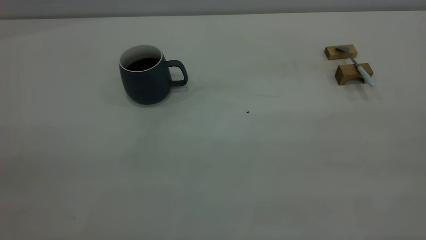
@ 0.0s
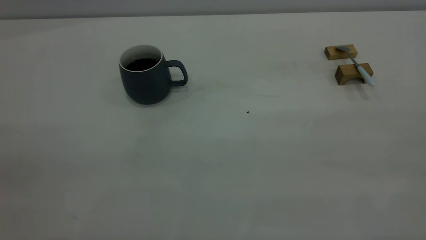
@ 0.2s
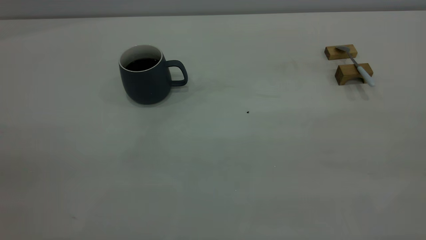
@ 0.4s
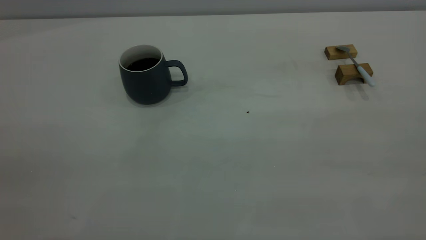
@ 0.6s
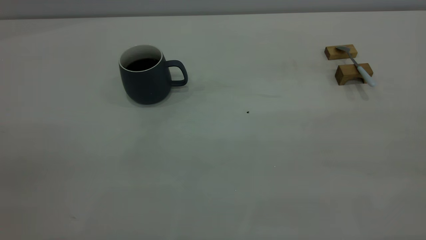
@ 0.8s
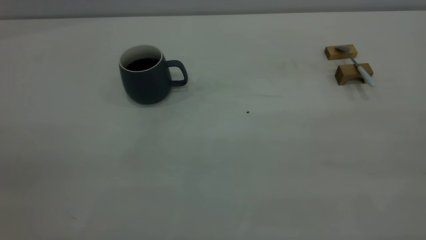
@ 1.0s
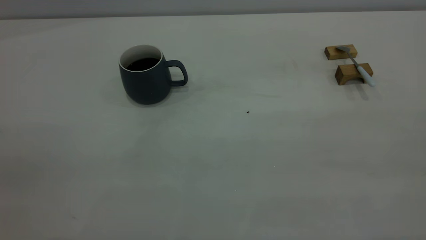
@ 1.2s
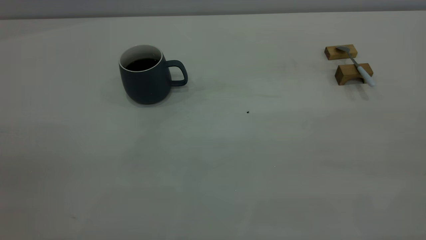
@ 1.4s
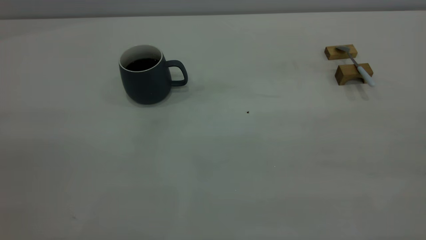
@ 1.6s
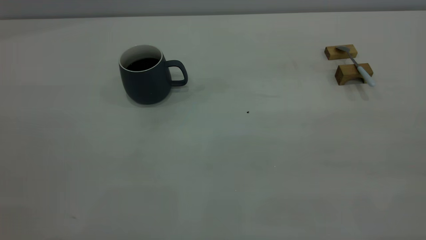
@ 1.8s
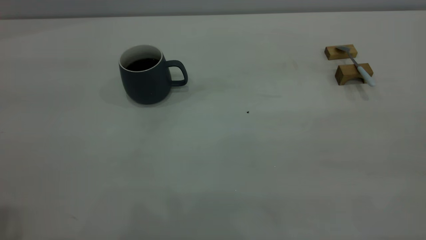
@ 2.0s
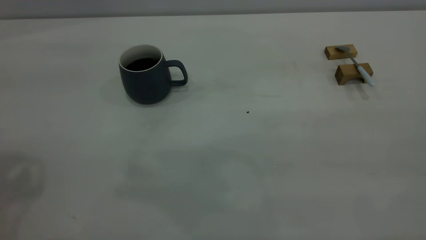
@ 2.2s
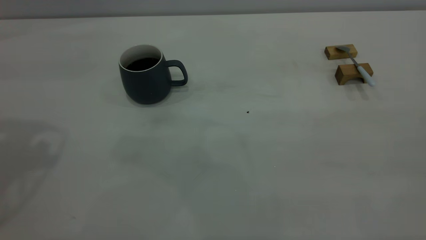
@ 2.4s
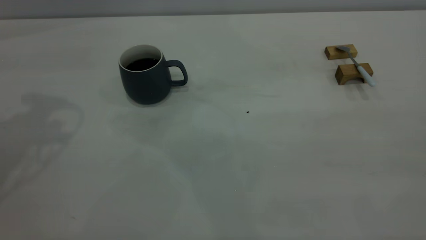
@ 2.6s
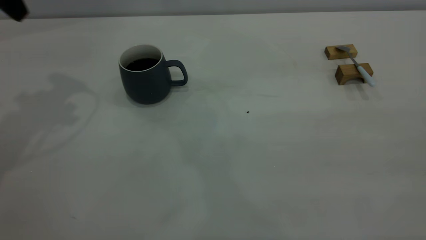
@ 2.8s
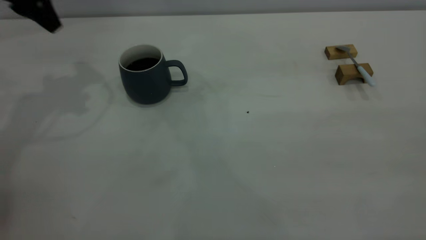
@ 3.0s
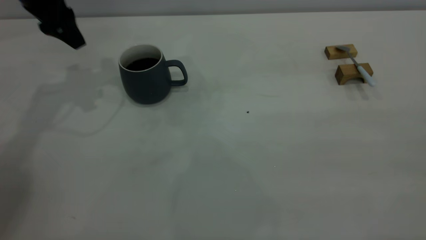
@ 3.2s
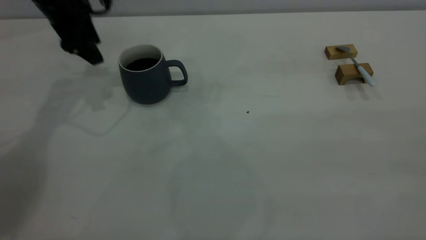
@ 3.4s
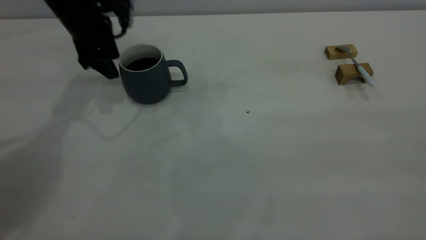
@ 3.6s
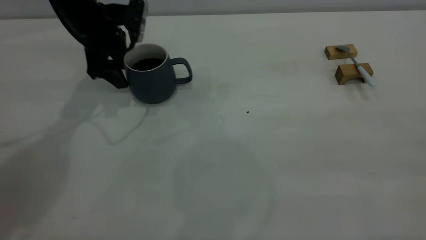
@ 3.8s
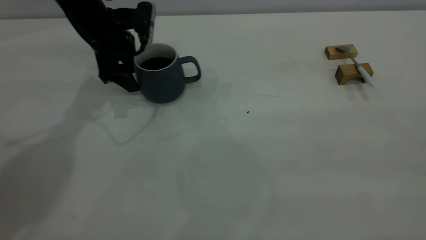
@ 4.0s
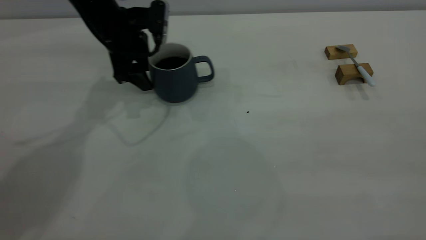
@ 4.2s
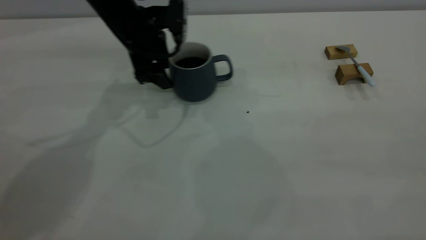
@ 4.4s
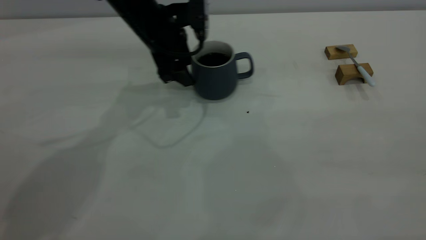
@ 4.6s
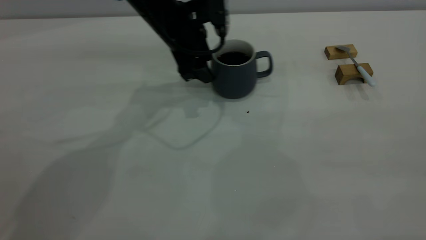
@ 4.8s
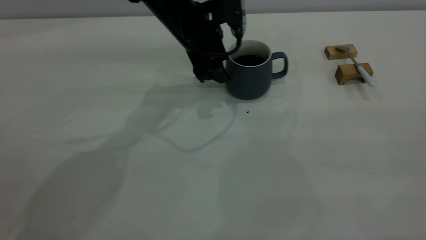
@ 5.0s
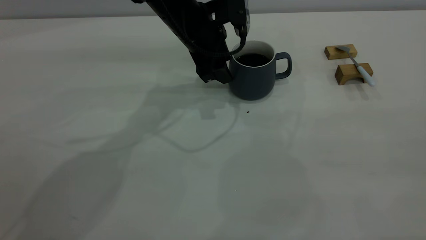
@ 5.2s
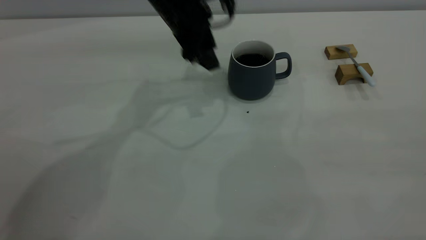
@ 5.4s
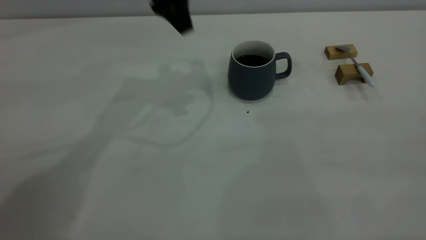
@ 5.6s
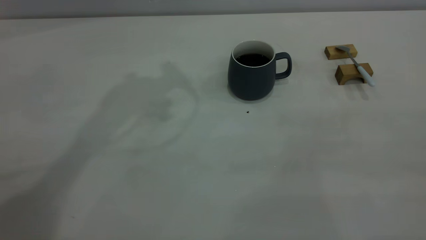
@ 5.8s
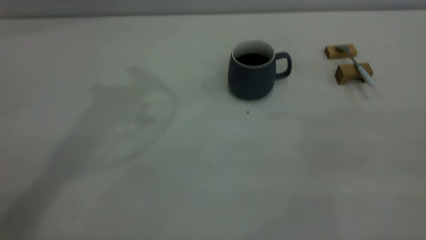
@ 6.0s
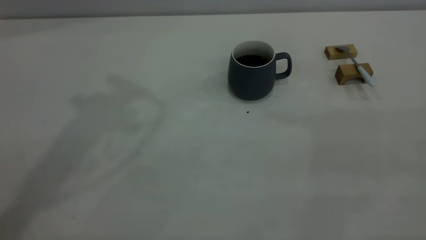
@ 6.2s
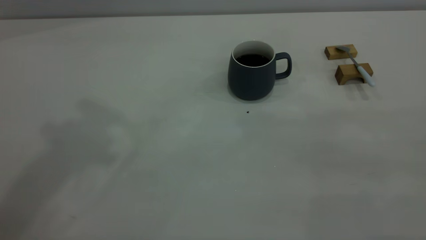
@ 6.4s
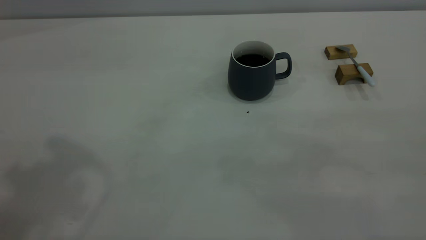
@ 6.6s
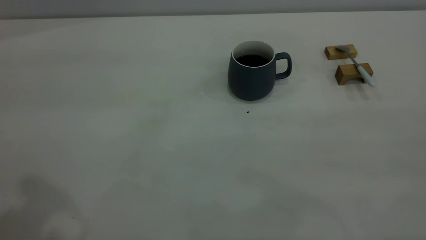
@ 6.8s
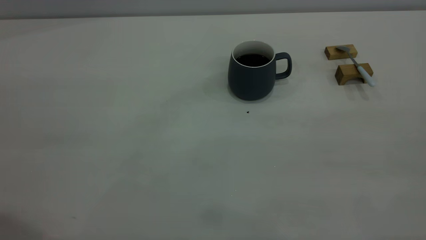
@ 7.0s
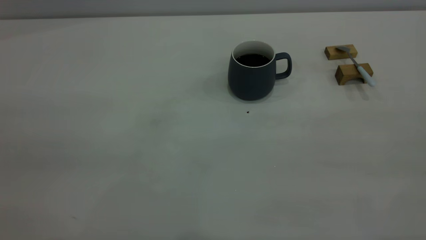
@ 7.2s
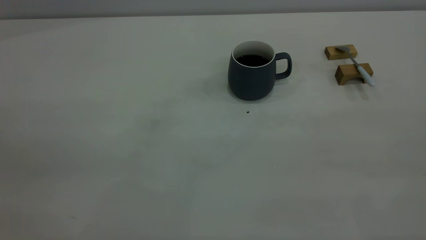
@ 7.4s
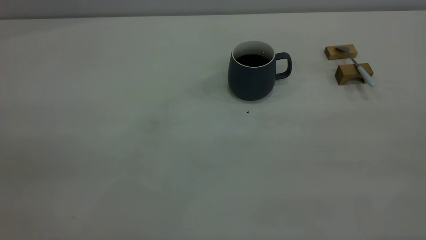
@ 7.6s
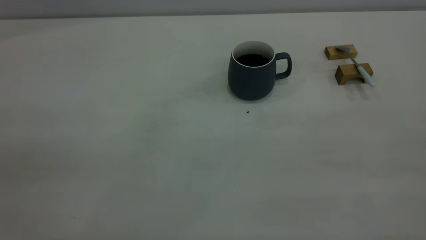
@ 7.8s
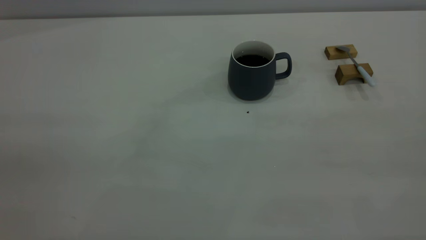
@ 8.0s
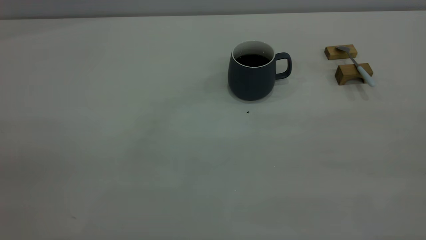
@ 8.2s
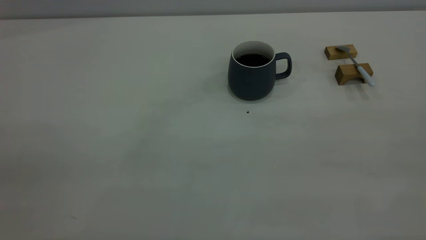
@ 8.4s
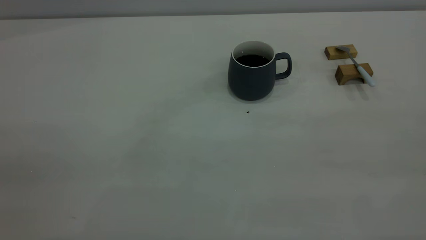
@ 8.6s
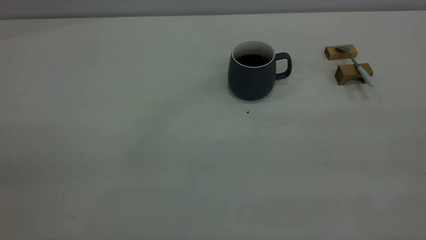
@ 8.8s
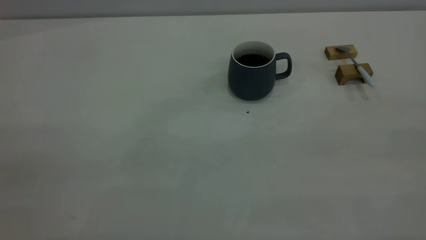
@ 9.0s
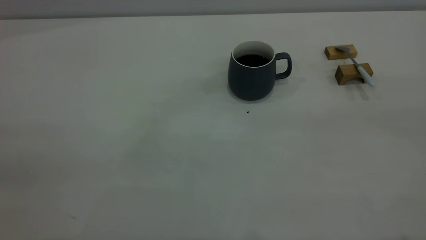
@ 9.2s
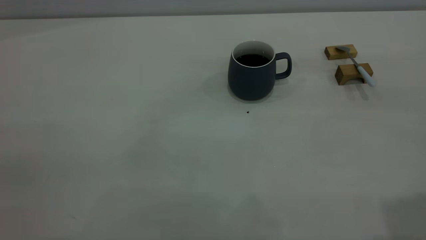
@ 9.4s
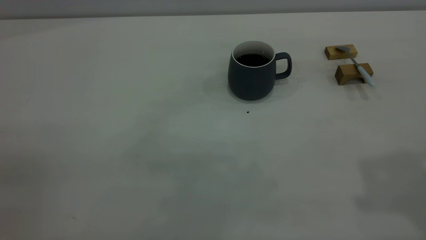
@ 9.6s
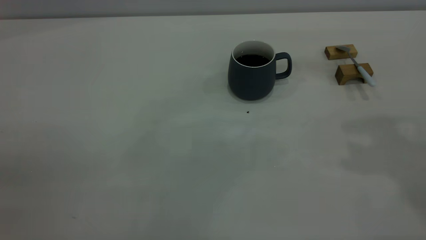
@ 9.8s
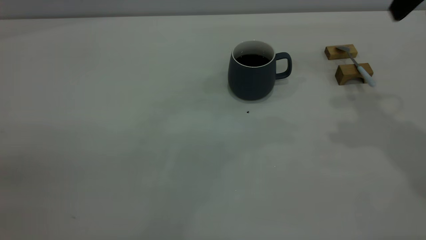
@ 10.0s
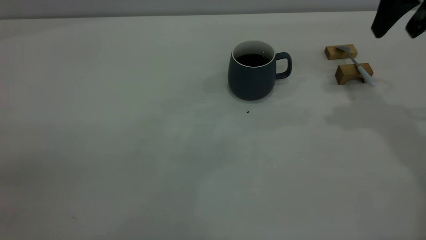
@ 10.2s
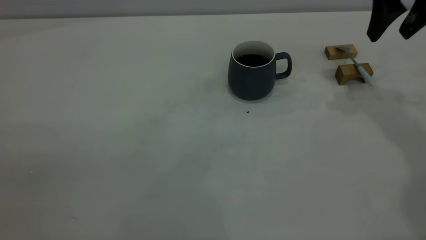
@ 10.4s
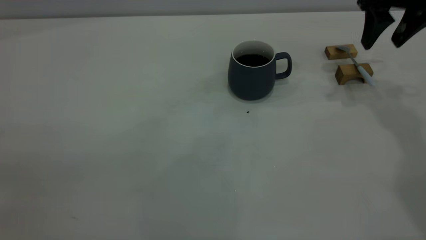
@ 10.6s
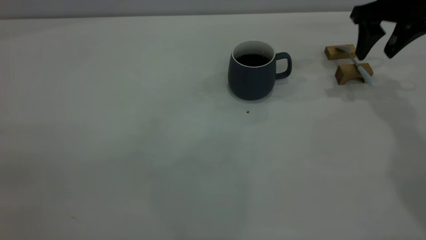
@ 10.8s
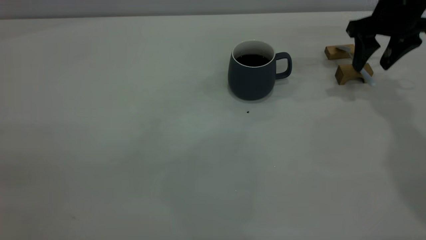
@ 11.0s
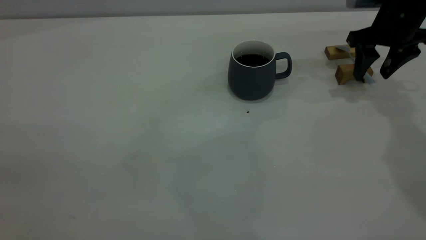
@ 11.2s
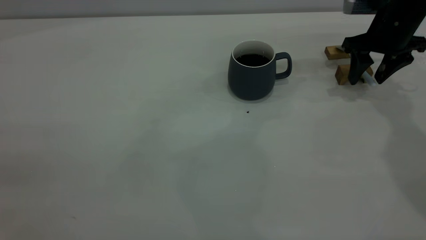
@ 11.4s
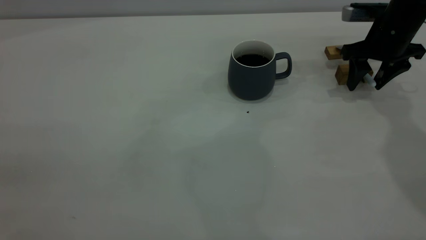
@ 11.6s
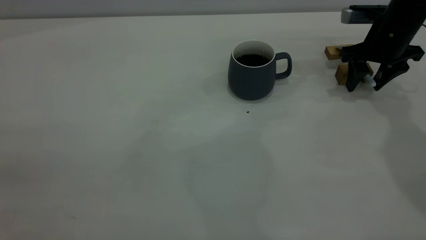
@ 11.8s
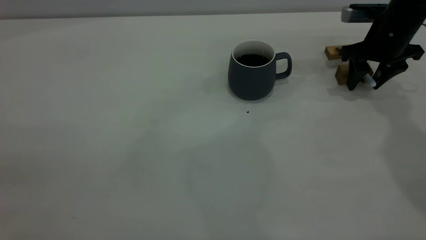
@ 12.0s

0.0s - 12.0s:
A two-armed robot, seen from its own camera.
Step, 0.0s - 5.4s: Move the cup with coffee to the center of view.
1.6s - 3.0s: The left gripper is displaced forward by roughly 40 cm.
3.0s - 4.4s: The left gripper is displaced to the right and downward by about 20 cm.
4.4s - 6.0s: The left gripper is displaced upward by approximately 30 cm.
9.0s - 10.4s: The right gripper heads forward, covering some 40 cm, and opens its fingers.
10.4s - 12.0s: The right gripper moves downward, approximately 15 cm.

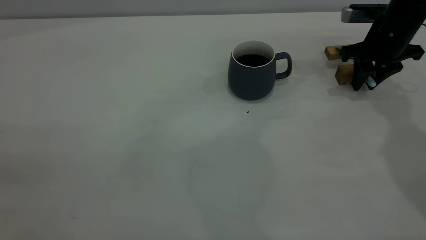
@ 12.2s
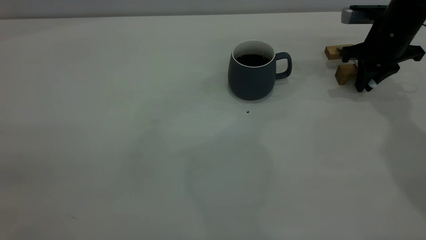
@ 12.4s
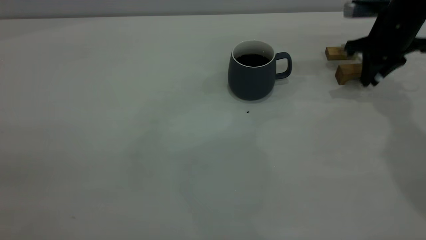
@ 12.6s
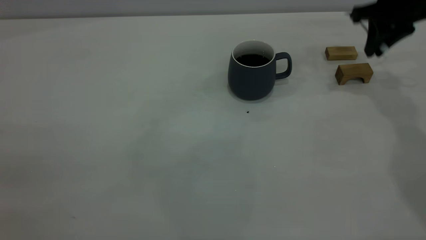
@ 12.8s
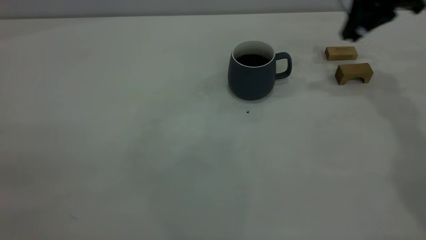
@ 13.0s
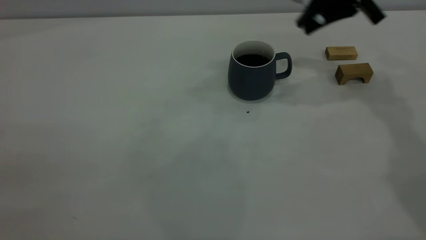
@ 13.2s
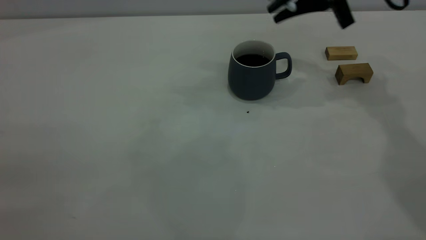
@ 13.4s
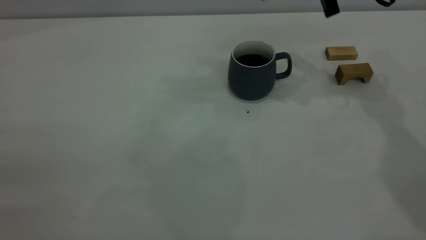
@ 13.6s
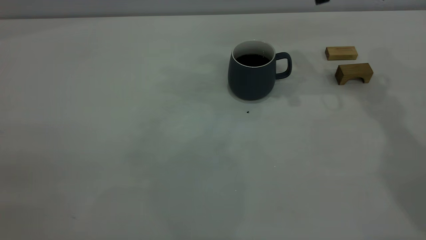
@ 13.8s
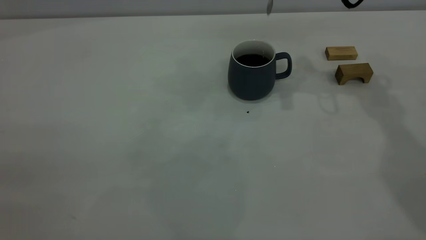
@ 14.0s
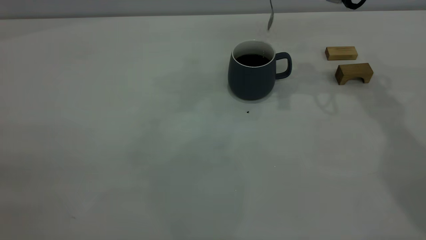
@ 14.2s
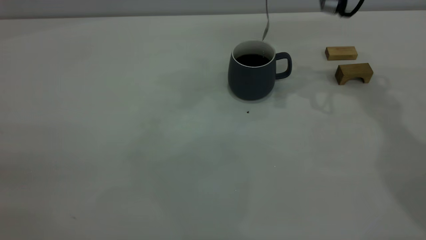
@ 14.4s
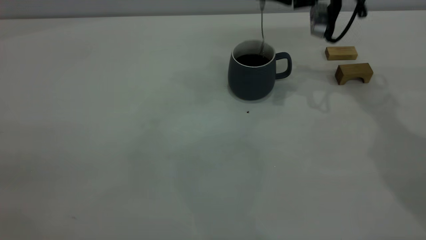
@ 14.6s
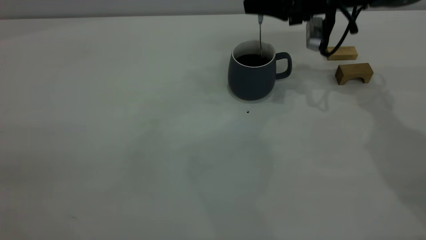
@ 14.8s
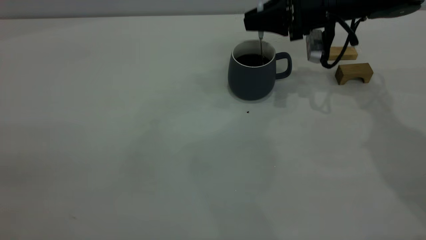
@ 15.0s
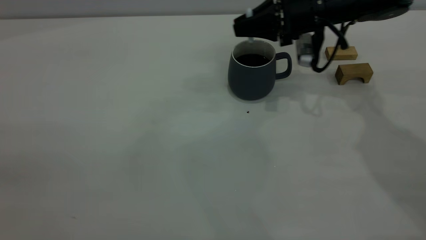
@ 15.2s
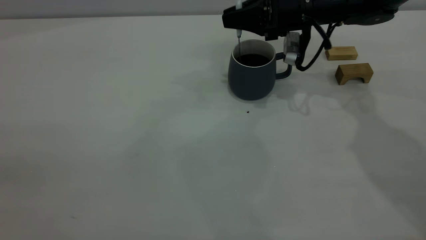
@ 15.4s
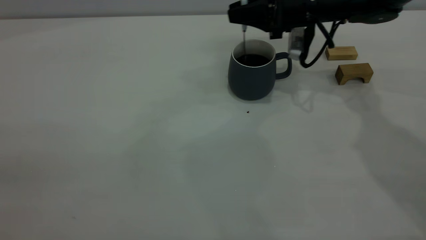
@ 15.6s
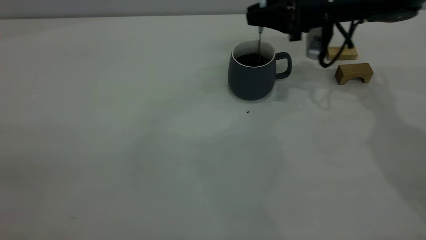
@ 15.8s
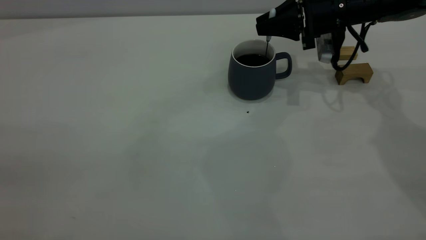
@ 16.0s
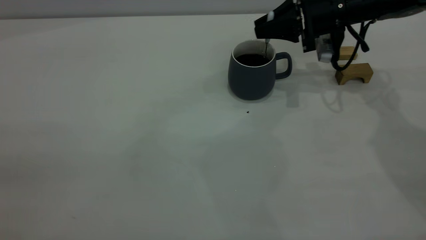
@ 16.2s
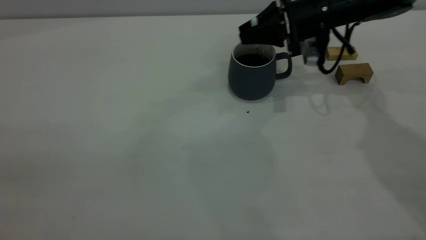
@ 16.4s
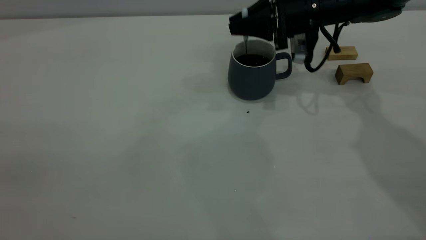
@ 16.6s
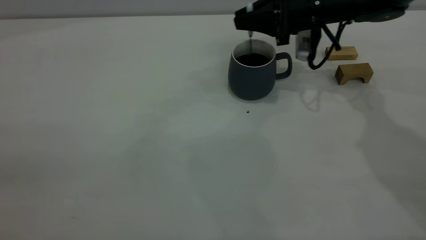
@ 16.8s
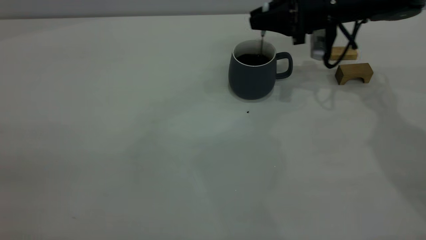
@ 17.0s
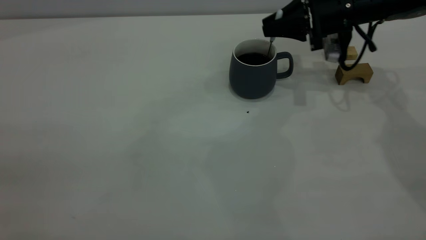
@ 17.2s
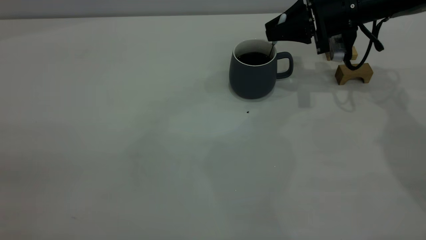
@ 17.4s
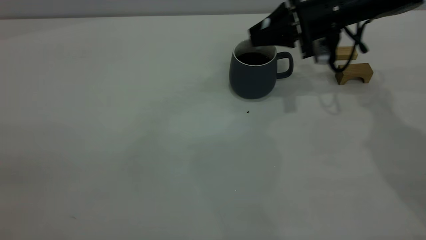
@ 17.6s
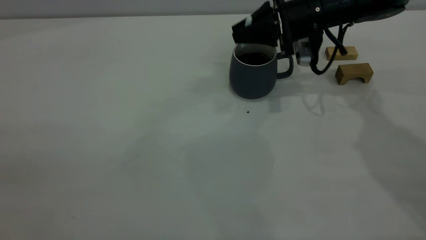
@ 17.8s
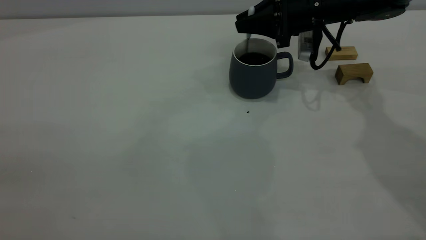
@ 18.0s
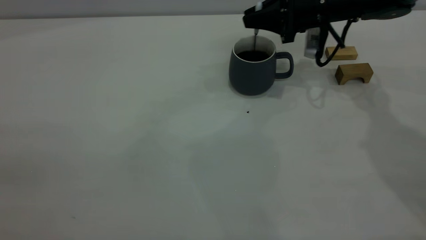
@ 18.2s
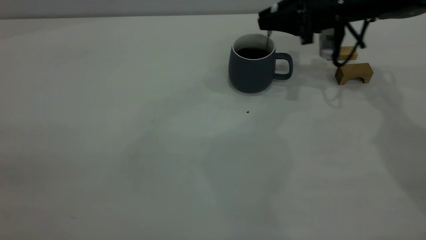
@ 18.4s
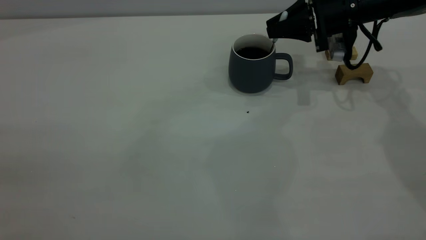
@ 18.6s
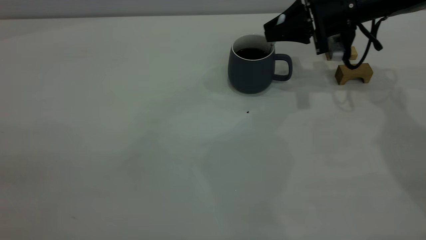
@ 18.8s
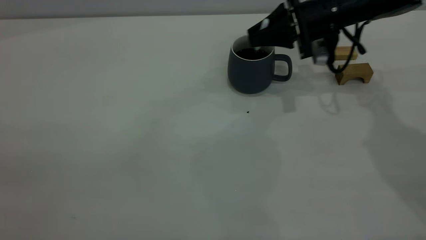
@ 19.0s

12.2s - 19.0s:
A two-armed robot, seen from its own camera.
12.2s - 13.6s: The right gripper goes some 15 cm upward and to the left.
13.6s - 15.0s: The right gripper goes approximately 10 cm downward.
15.0s - 19.0s: The grippers move only a little.
